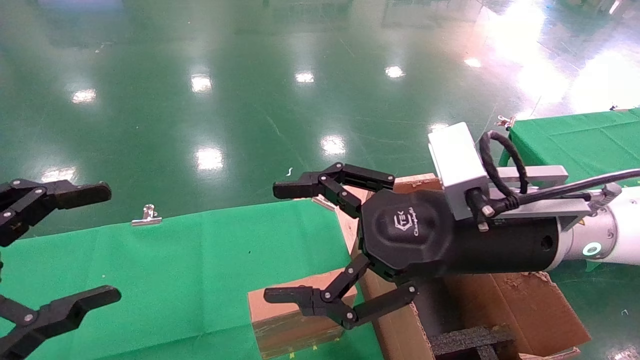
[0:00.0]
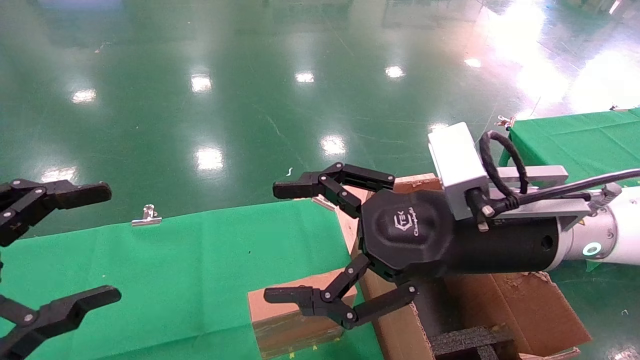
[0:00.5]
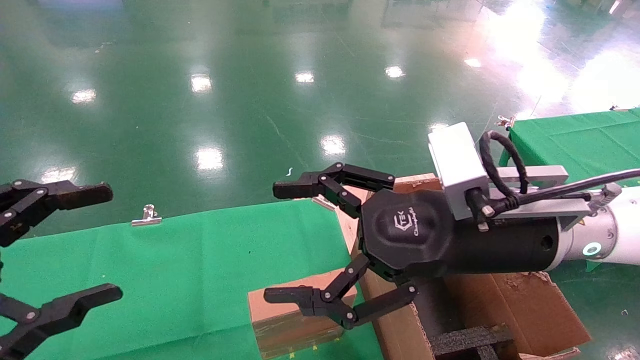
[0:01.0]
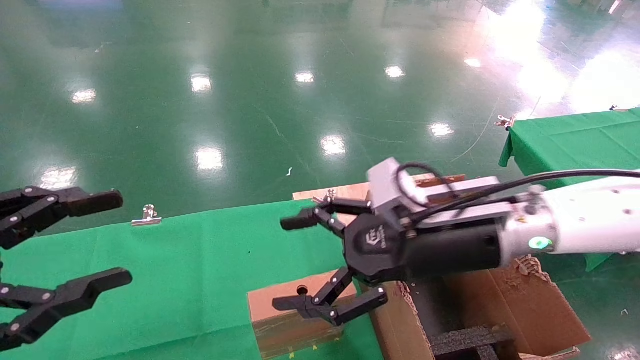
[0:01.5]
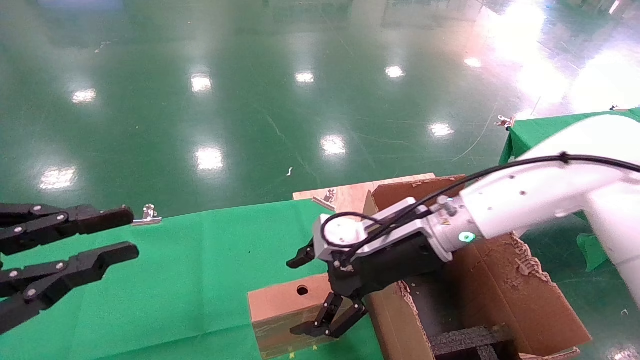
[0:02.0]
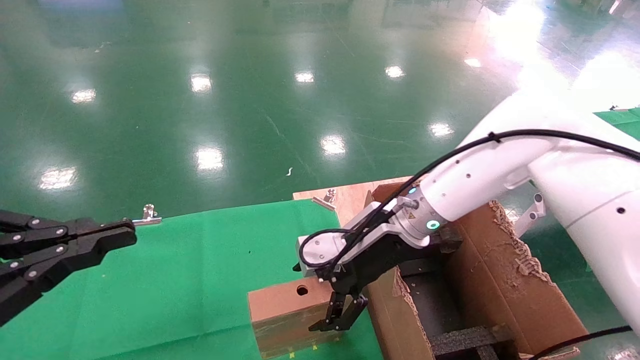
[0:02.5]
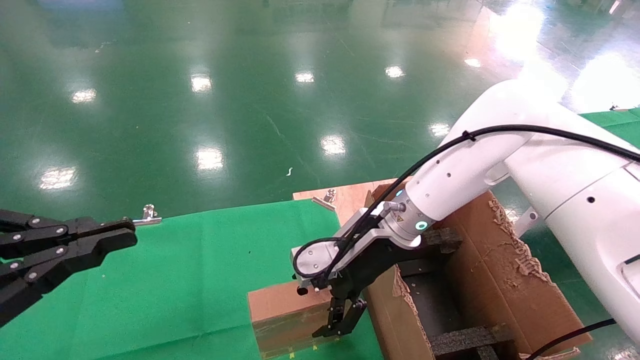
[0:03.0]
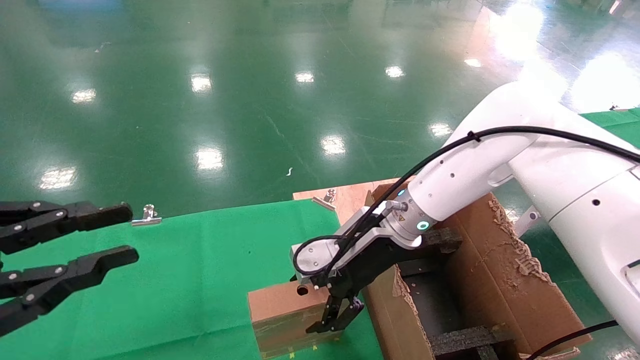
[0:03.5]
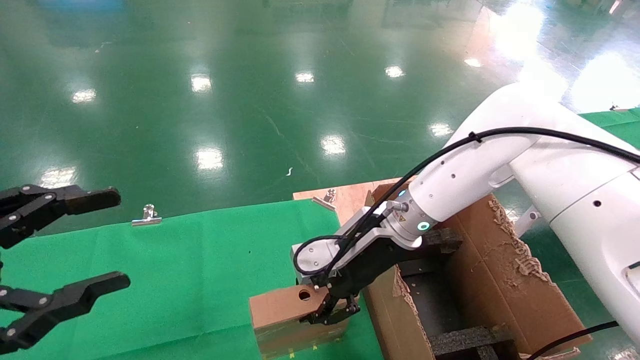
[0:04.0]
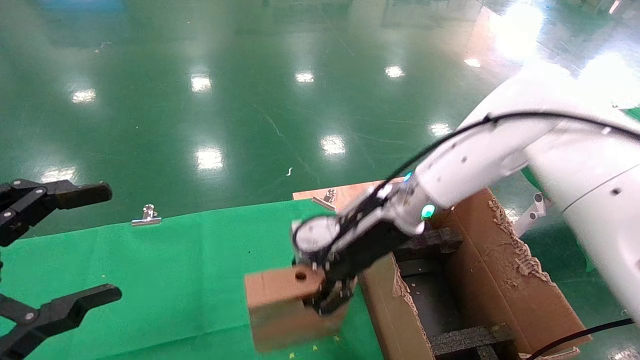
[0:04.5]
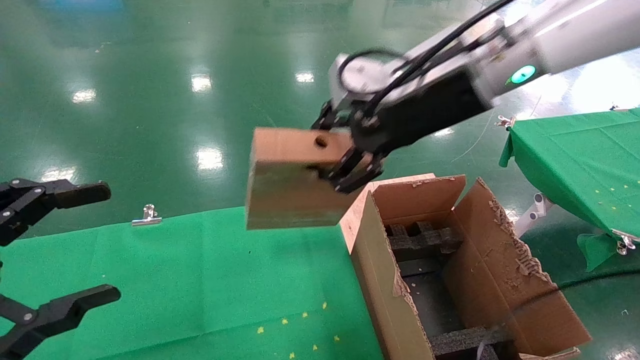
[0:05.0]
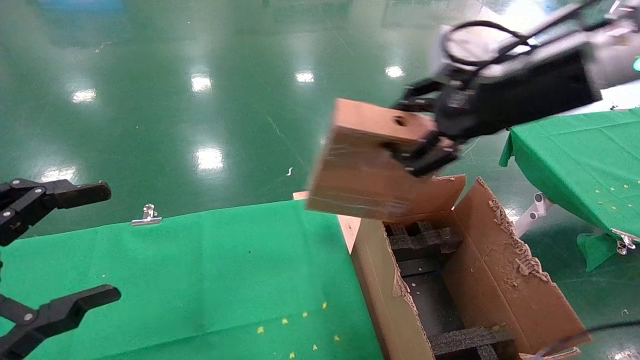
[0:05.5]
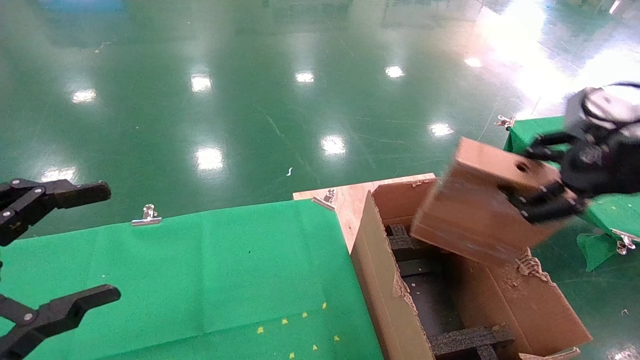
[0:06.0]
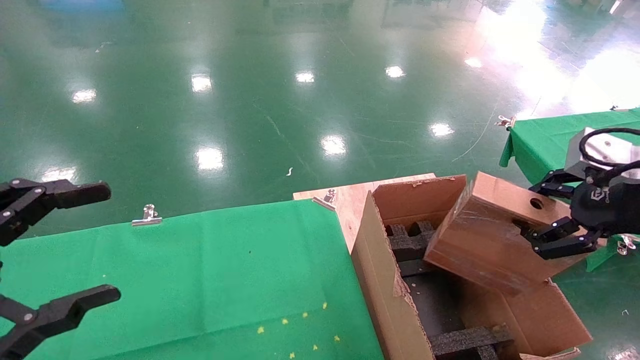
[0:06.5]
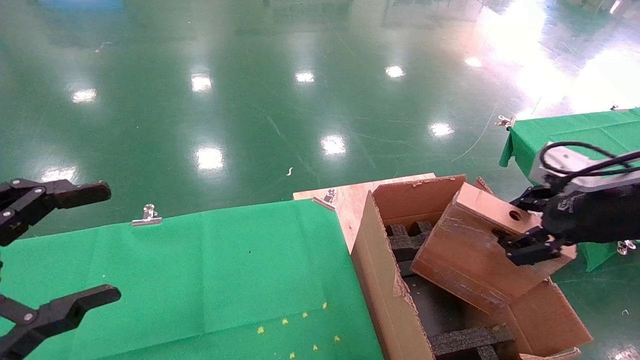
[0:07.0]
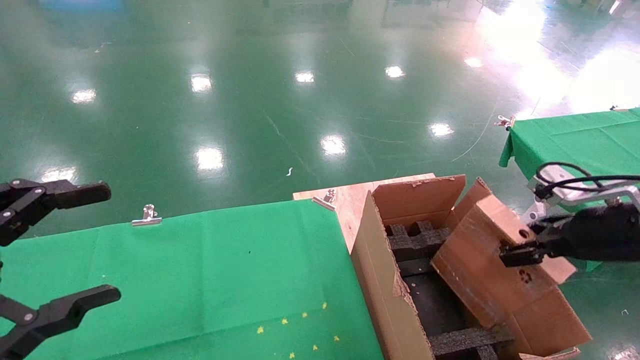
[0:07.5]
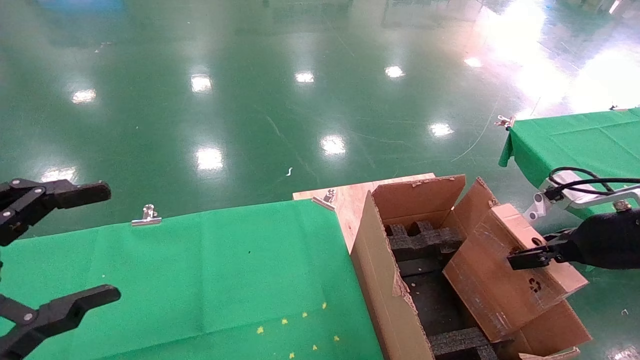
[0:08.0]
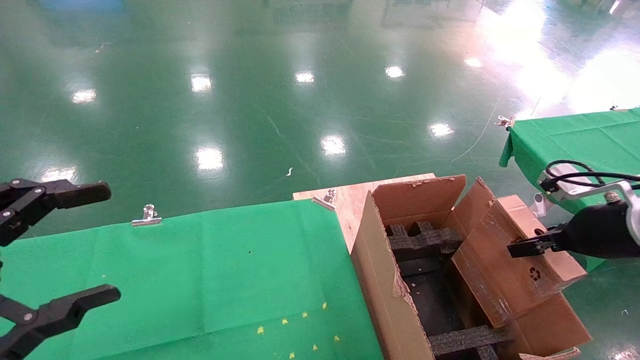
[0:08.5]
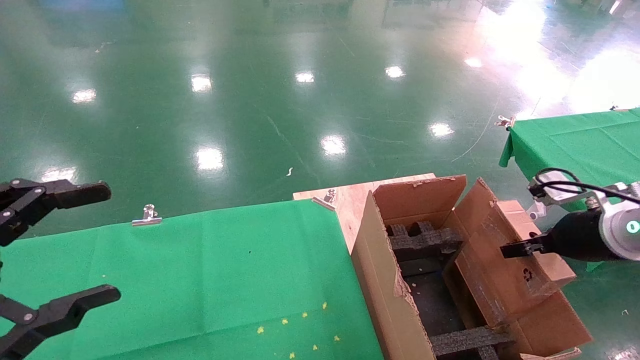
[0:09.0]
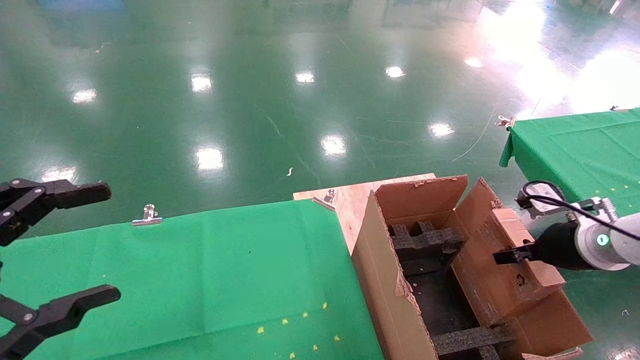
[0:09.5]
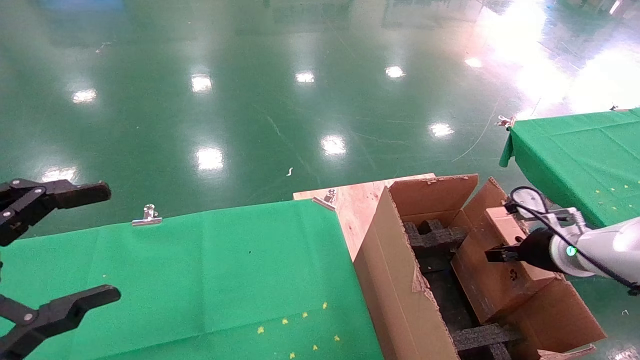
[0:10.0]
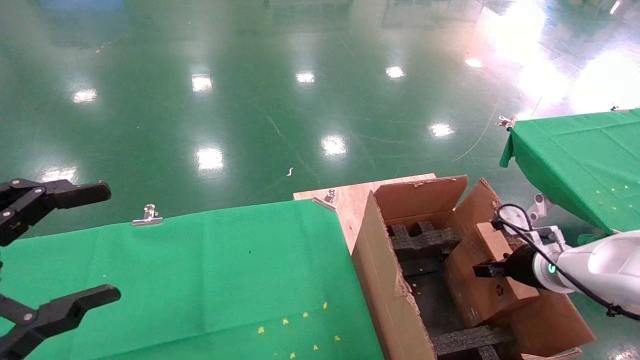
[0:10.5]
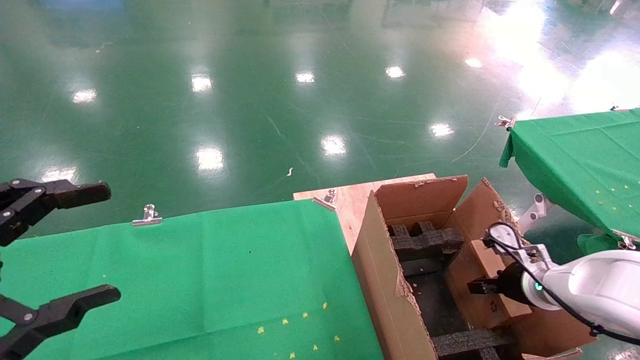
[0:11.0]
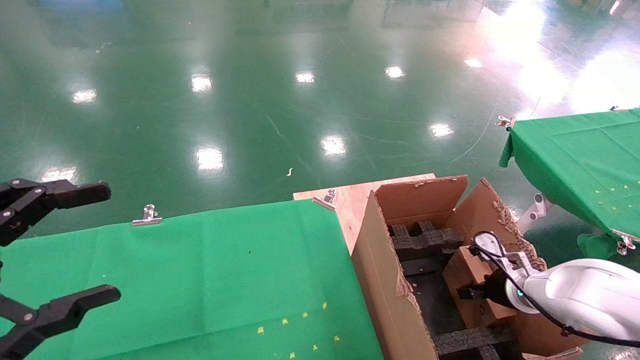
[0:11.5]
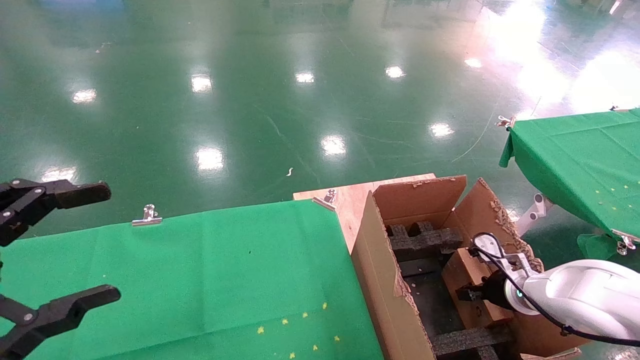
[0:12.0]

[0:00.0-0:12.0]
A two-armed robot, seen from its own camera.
Task of the whole recording: using a robotic arm to pick up a cardboard box and palace it the carton.
Step, 0:01.5 to 0:04.0: Pick up the mouse and the power cord paper box.
Step, 0:04.5 to 0:11.5: Place the mouse and the power cord paper box into the container.
0:00.0 to 0:02.0: The right gripper is displaced forward and downward by approximately 10 cm, while the left gripper closes up.
0:02.0 to 0:04.0: The right gripper closes, while the left gripper closes, then opens again.
0:04.0 to 0:06.0: The left gripper opens up. Meanwhile the right gripper moves to the right, backward and upward, some 35 cm, and closes up.
0:06.0 to 0:08.0: The right gripper moves downward, some 10 cm.
0:08.0 to 0:10.0: The right gripper moves downward and forward, roughly 10 cm.
0:10.0 to 0:12.0: The right gripper travels downward by some 10 cm.

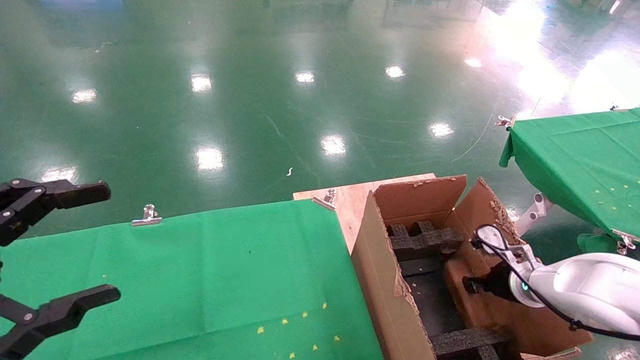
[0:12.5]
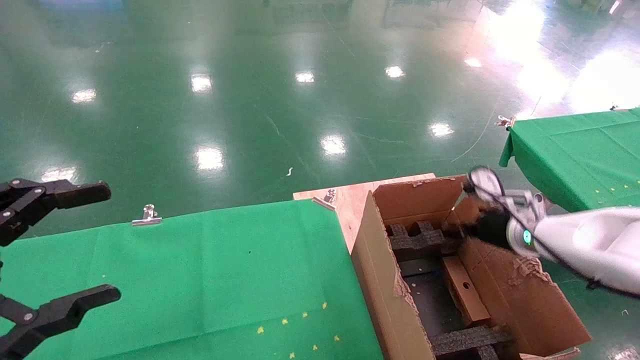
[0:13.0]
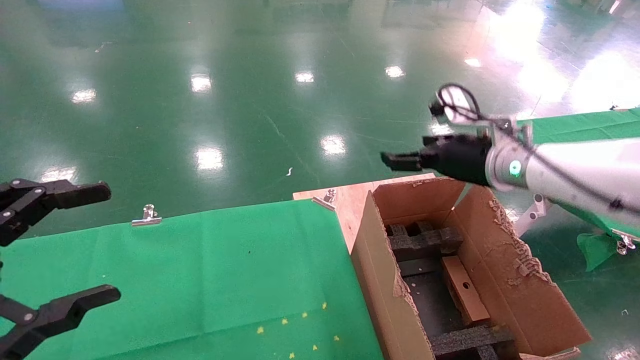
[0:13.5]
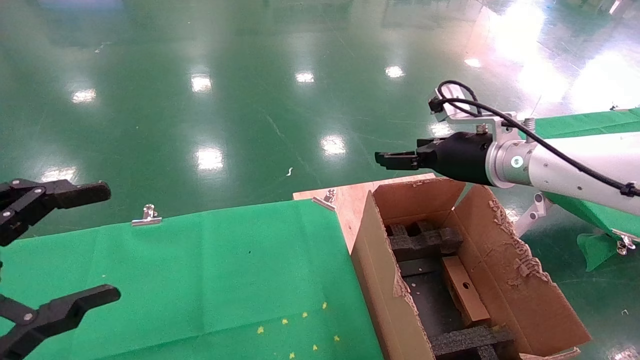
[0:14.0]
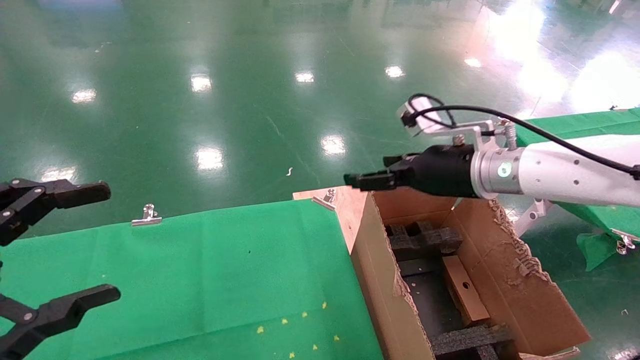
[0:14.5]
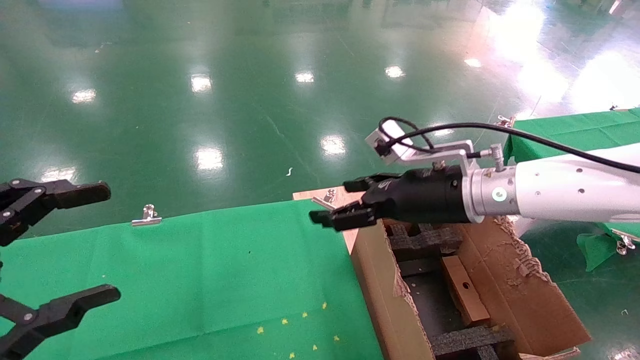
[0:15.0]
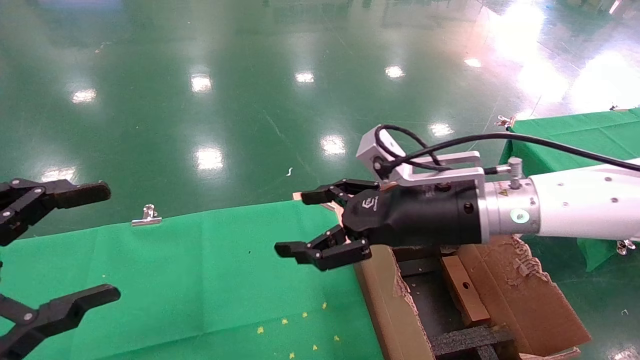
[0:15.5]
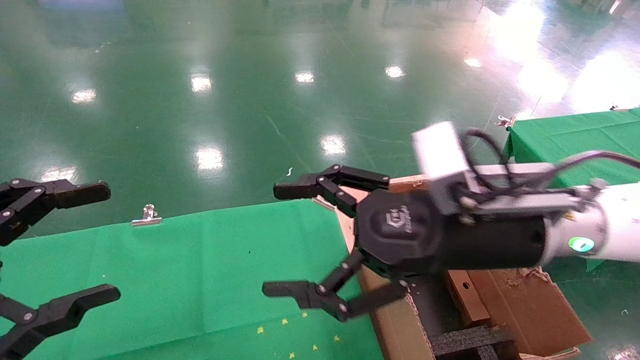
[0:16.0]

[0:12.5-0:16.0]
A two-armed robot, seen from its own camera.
Task of the whole recording: using a robotic arm to pick up a cardboard box and palace it the carton.
0:12.5 to 0:14.5: The right gripper heads upward and to the left, covering roughly 25 cm, and opens up.
0:14.5 to 0:16.0: The right gripper is displaced backward and to the left by about 15 cm.

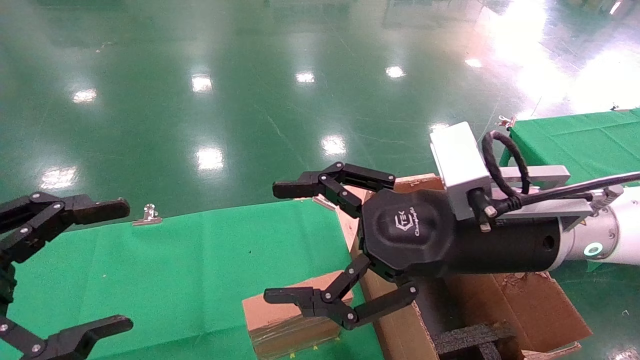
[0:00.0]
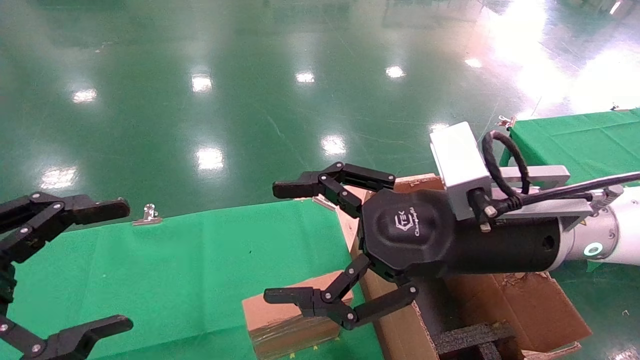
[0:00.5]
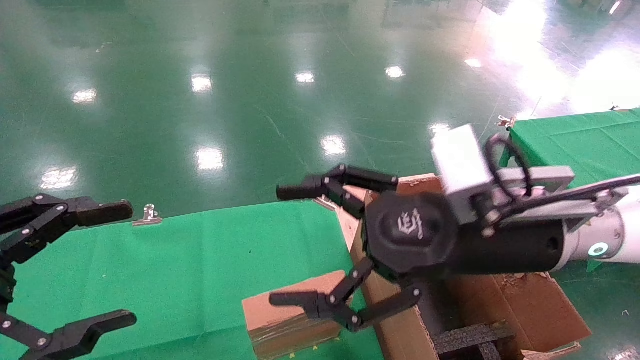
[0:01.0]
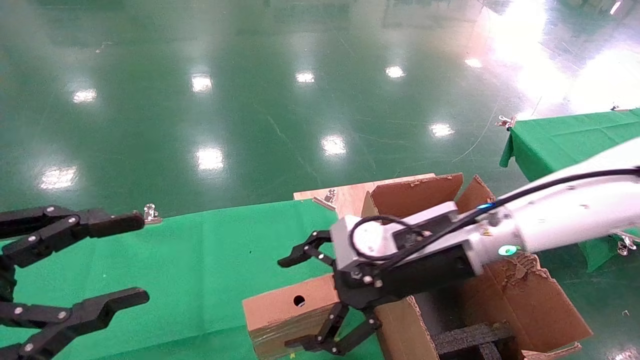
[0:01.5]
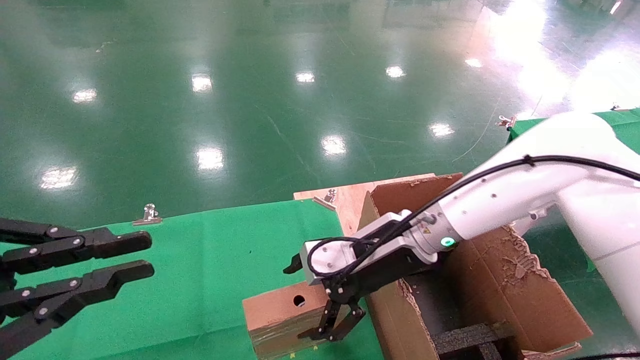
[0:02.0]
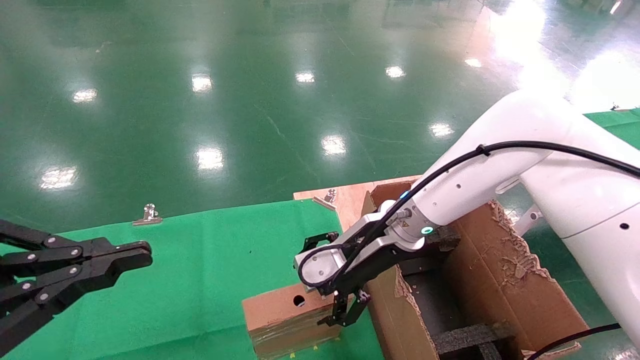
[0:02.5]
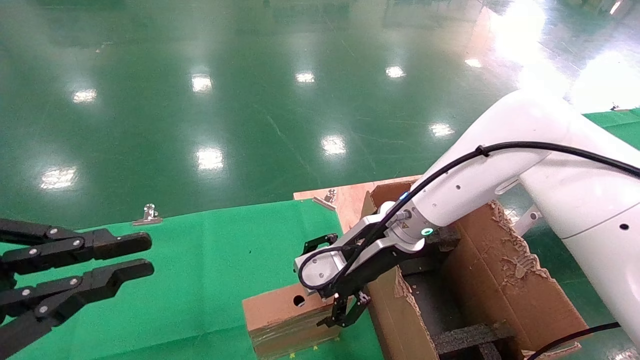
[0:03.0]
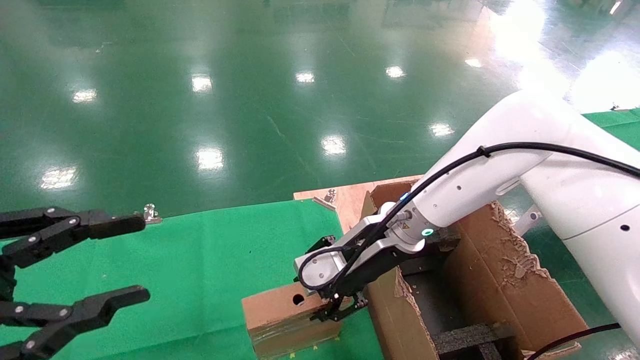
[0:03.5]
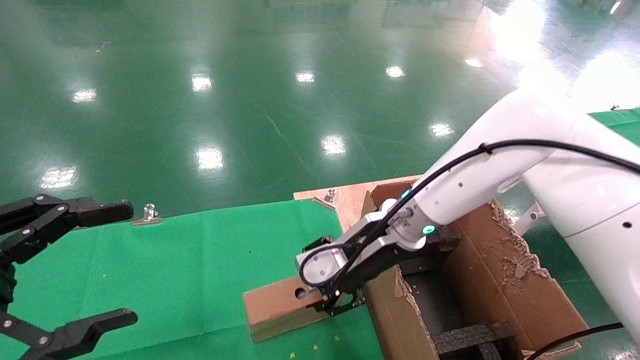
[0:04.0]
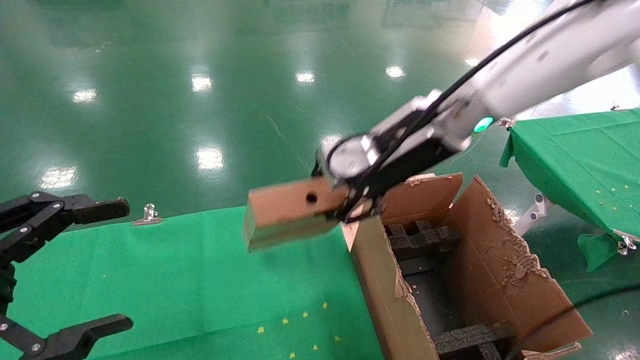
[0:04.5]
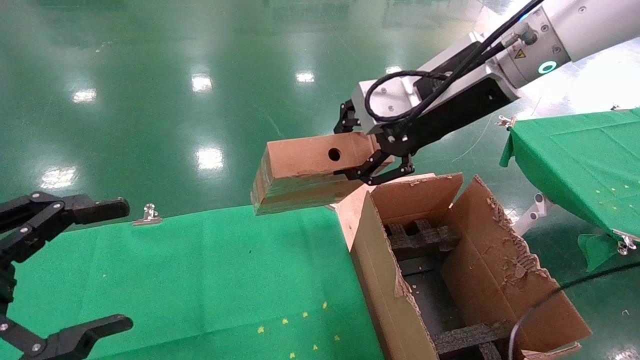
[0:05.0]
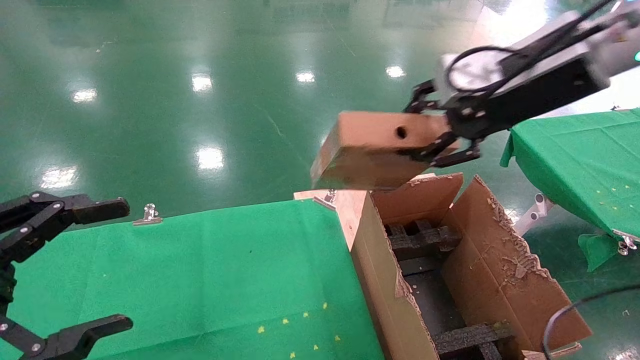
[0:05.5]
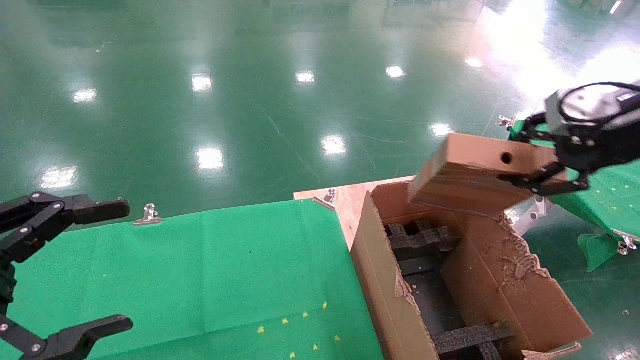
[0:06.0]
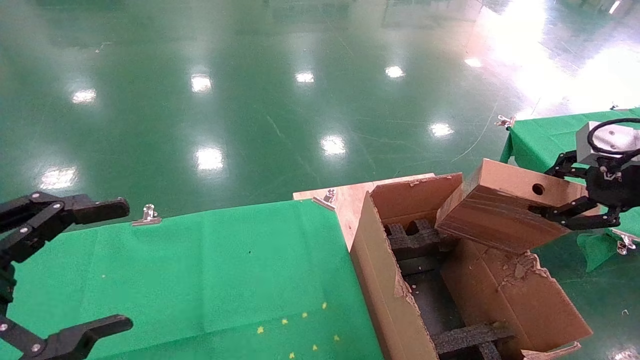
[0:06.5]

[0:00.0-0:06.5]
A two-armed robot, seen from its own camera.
Task of the whole recording: using a robotic arm to pick up a cardboard box and palace it the carton.
Step, 0:01.5 to 0:03.5: Pick up the mouse and the power cord paper box.
0:00.0 to 0:02.0: The left gripper closes its fingers. The right gripper heads forward and downward, covering some 15 cm.
0:02.0 to 0:04.5: The left gripper opens its fingers; the right gripper is displaced upward by roughly 15 cm, and closes its fingers.
0:04.5 to 0:06.5: The right gripper heads to the right and backward, covering about 30 cm.
